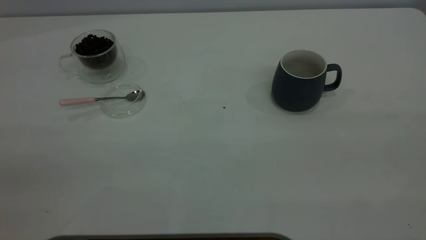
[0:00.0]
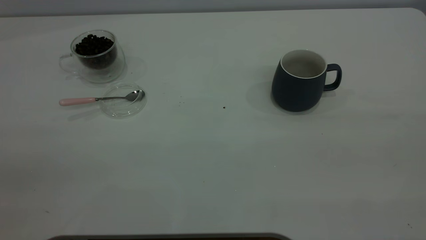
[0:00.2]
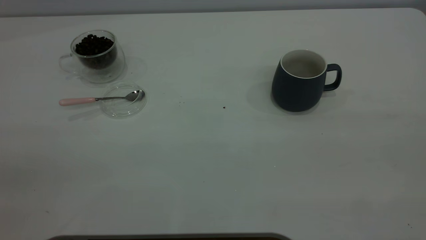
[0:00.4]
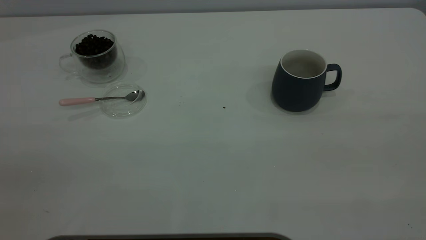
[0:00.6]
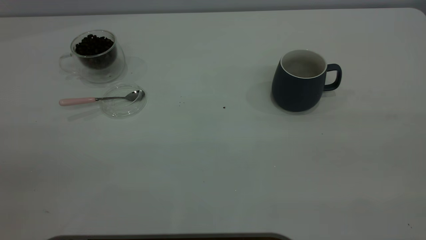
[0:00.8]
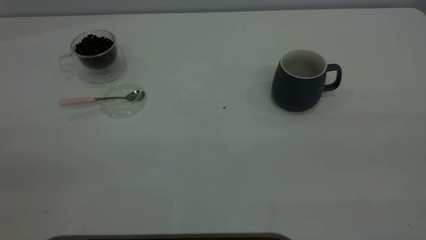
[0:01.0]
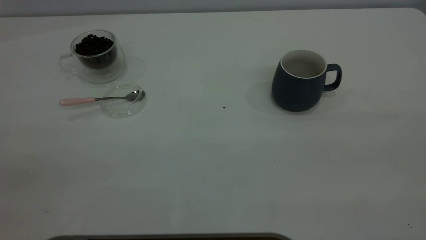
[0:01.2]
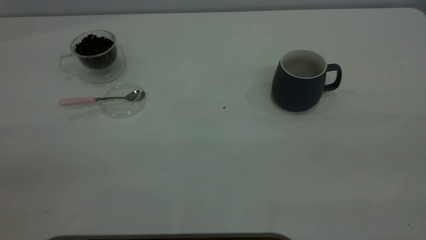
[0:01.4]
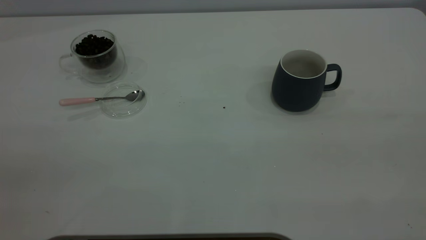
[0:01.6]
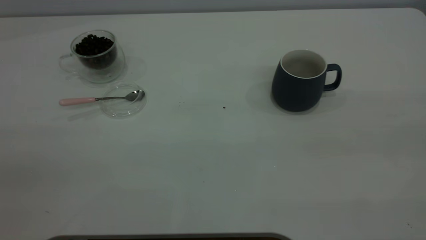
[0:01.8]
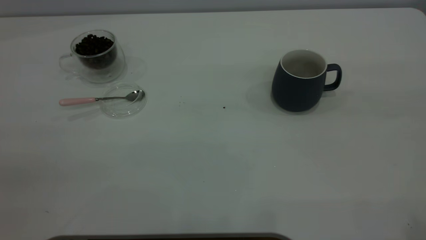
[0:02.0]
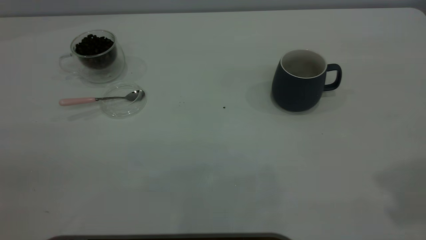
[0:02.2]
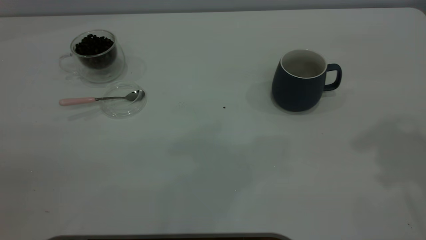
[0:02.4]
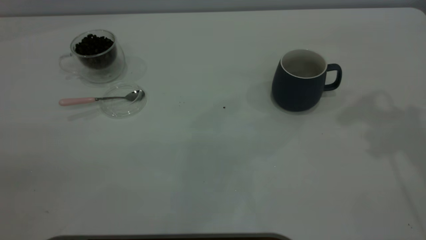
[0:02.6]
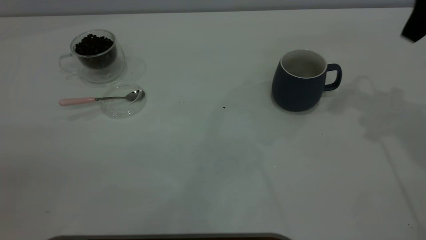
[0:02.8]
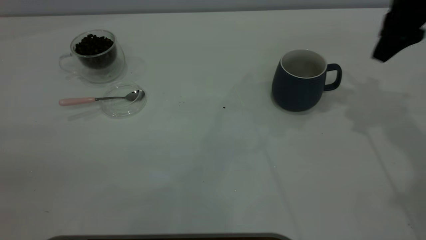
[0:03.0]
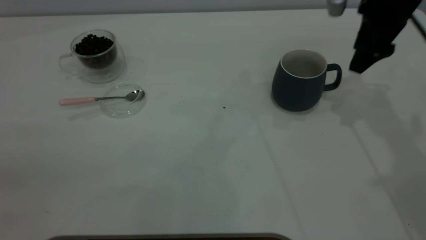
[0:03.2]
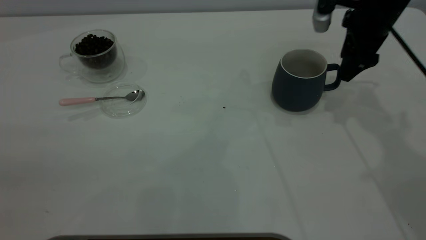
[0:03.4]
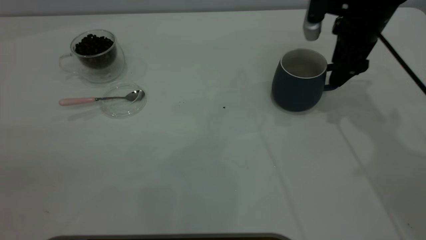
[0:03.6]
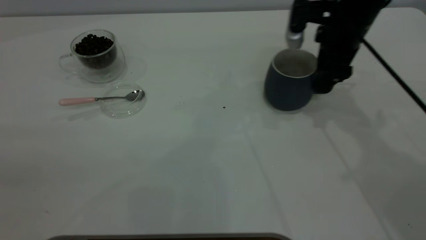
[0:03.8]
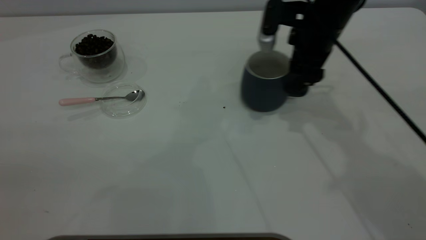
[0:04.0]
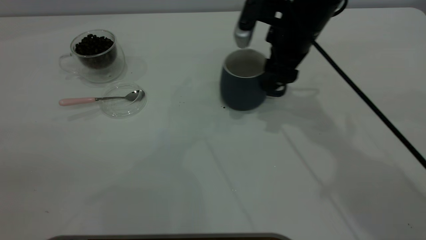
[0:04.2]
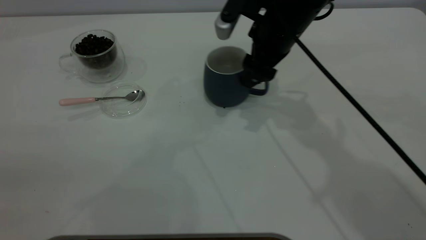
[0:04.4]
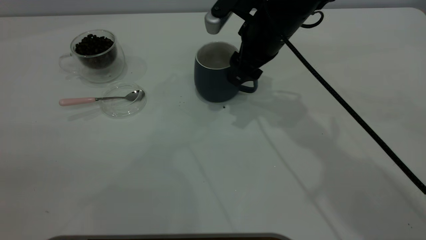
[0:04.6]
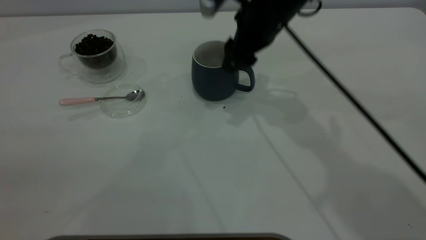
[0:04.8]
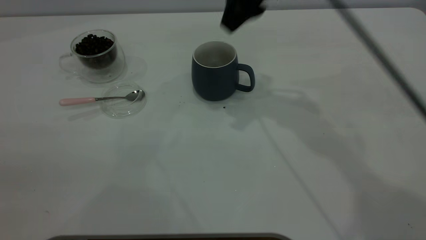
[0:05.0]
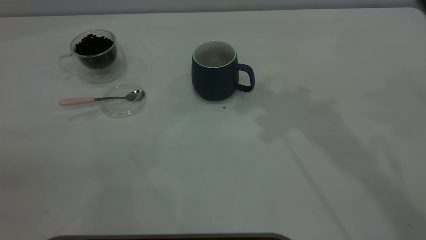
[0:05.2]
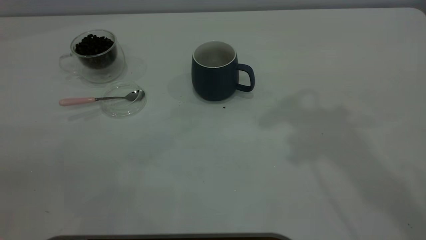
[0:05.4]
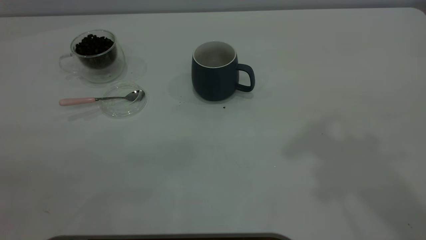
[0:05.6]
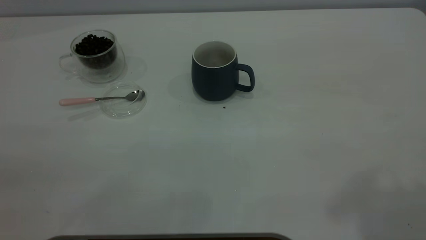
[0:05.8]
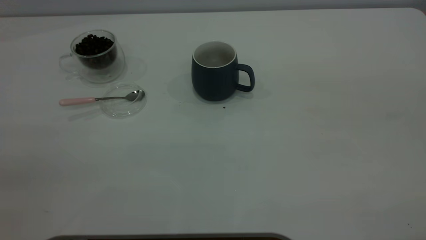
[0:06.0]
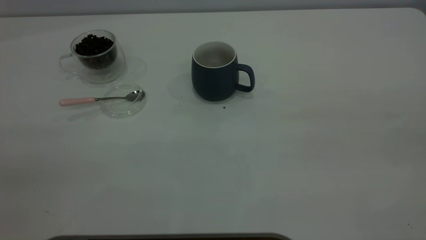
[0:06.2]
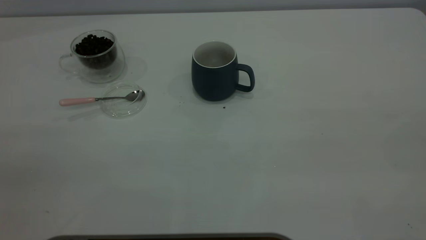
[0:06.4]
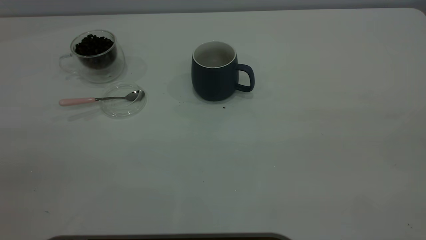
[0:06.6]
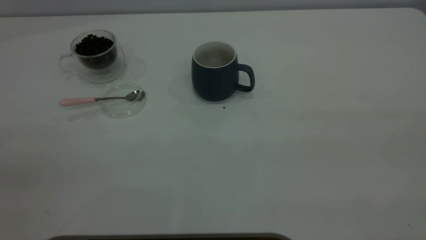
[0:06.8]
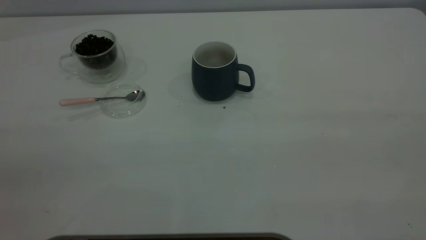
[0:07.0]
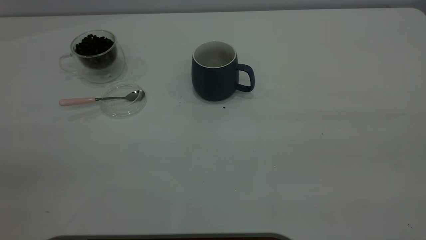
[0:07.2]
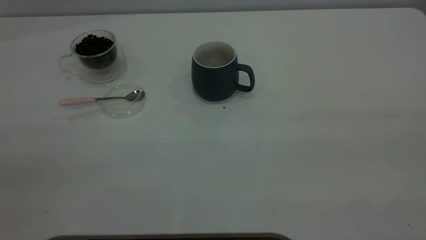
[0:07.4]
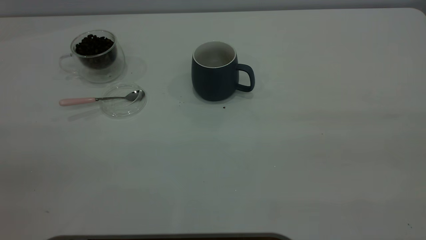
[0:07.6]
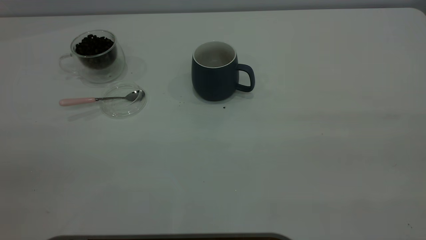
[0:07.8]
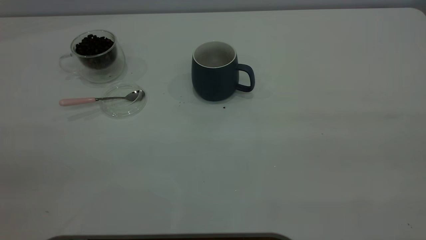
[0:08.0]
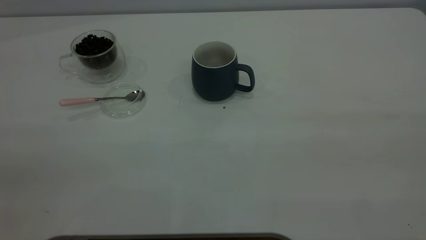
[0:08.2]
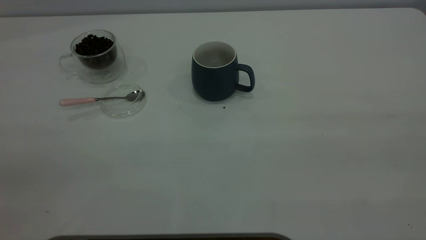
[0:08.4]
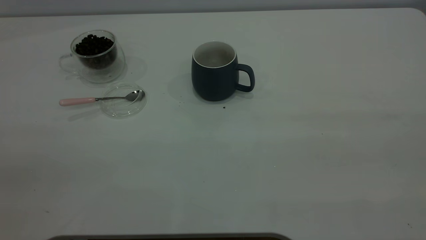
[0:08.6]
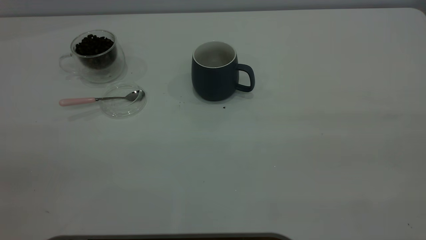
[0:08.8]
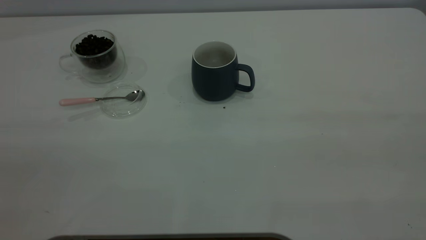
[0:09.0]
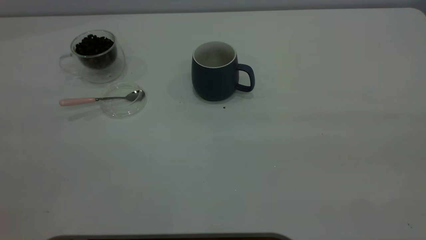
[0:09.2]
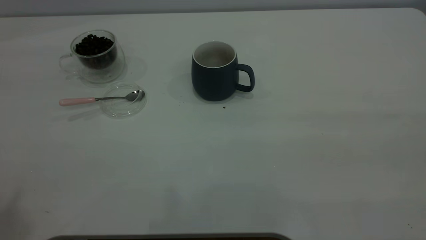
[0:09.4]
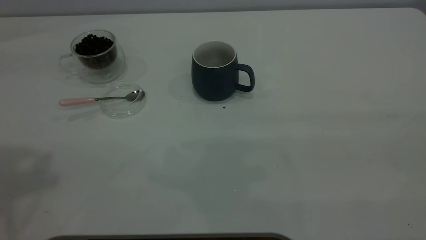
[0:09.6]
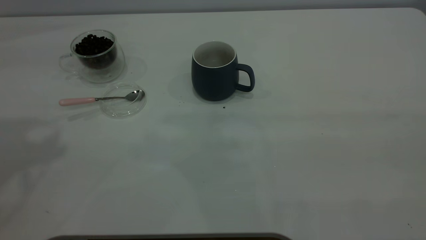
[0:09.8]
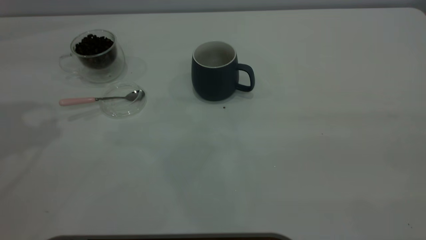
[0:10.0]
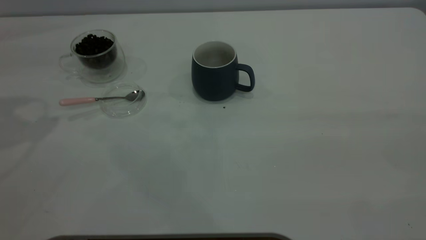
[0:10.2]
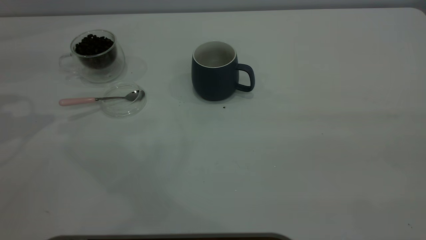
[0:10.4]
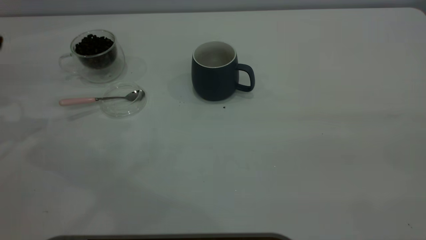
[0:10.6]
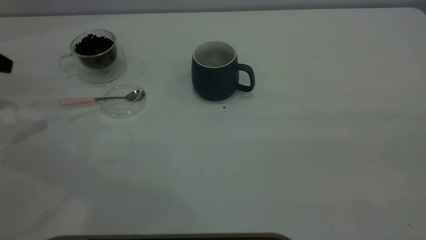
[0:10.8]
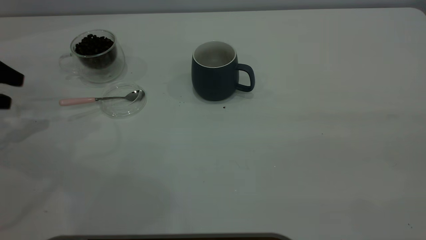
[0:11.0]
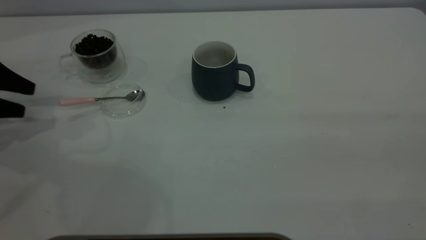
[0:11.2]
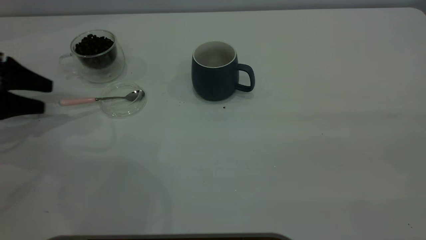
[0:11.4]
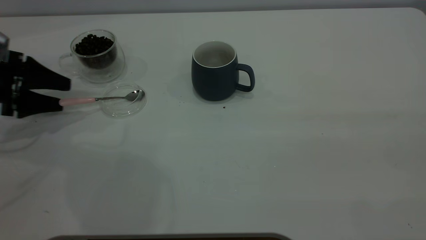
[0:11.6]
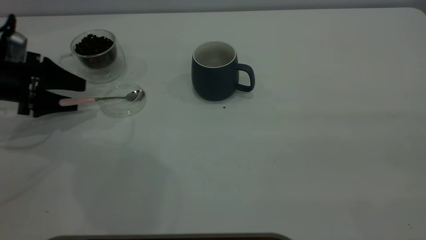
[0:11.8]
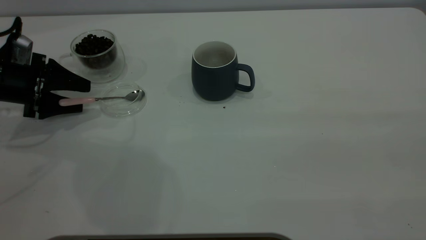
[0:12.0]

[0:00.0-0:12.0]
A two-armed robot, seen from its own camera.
Task of the whole recording: the right gripper place the grey cup in the center of the table, the left gripper take the pink spoon from the cup lid and scoop out the coffee beans from the coffee cup and put them into the grey cup, the left gripper put the spoon back into the cup lid.
Step, 0:00.0 to 0:04.8: Move the cup to the center of view.
0:00.0 to 0:01.6: The two grippers keep their place.
0:01.6 to 0:03.0: The right gripper shifts about 40 cm forward.
0:03.0 to 0:04.4: The right gripper heads to the left, covering about 15 cm.
0:04.4 to 0:06.0: The right gripper heads backward, upward and to the right, covering about 50 cm.
0:10.4 to 0:12.0: The left gripper moves downward, about 20 cm.

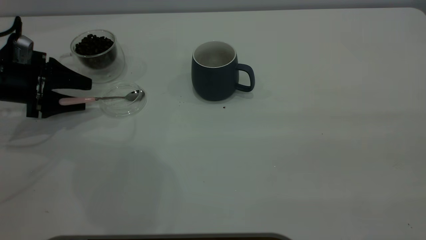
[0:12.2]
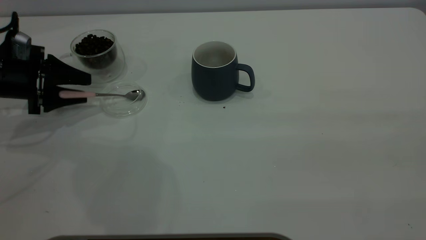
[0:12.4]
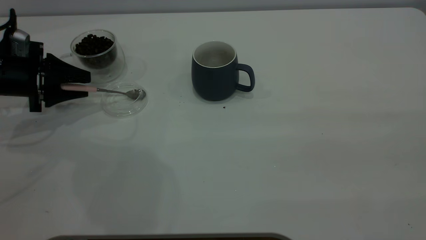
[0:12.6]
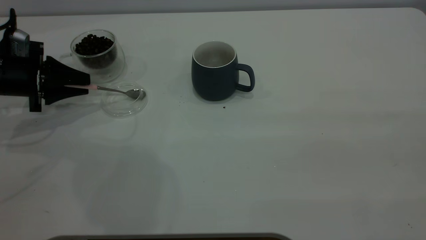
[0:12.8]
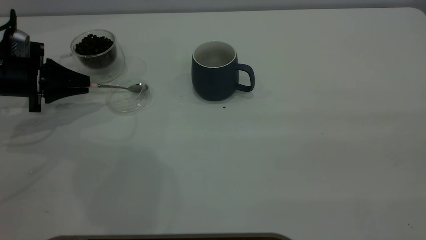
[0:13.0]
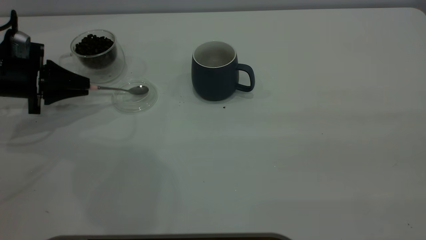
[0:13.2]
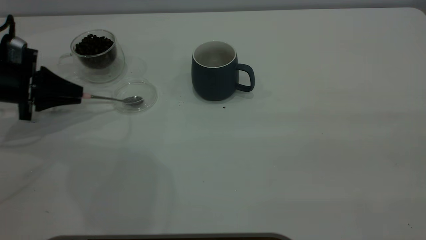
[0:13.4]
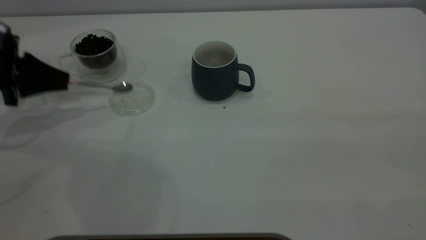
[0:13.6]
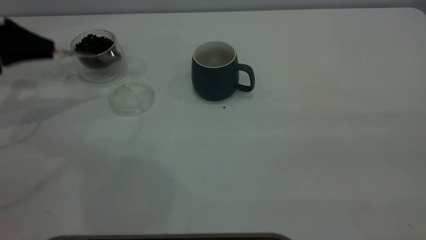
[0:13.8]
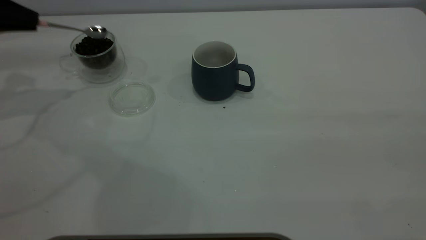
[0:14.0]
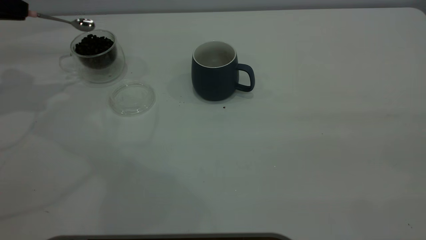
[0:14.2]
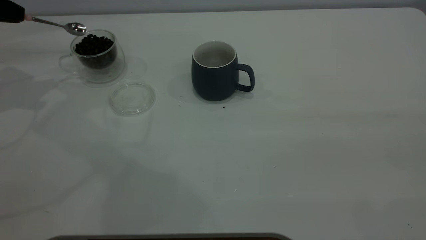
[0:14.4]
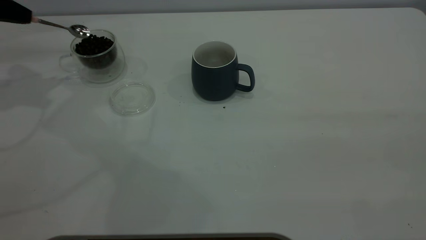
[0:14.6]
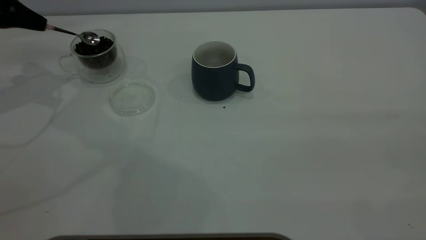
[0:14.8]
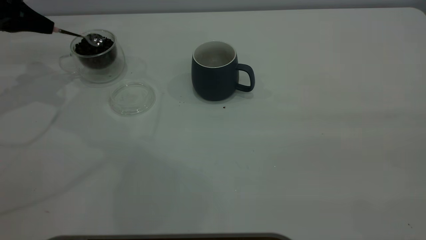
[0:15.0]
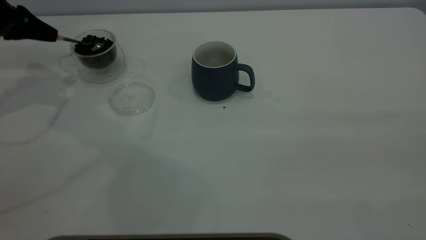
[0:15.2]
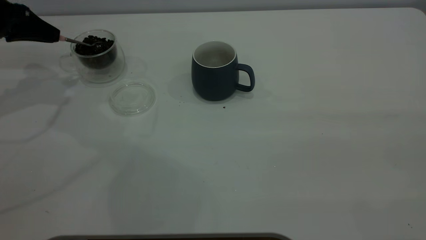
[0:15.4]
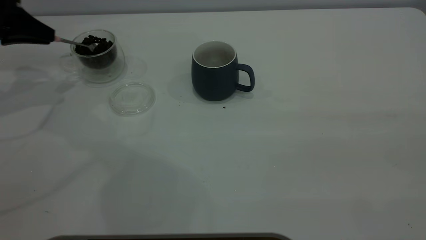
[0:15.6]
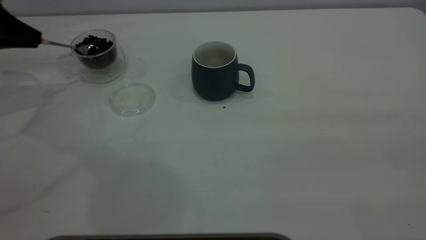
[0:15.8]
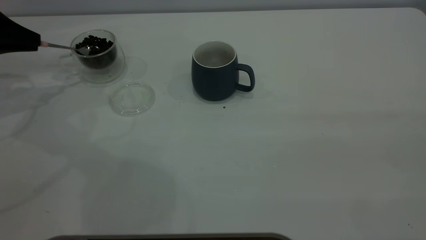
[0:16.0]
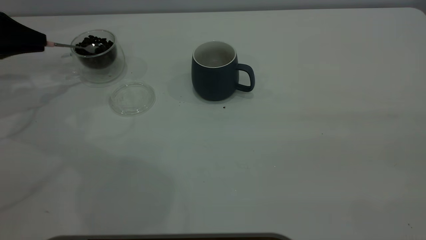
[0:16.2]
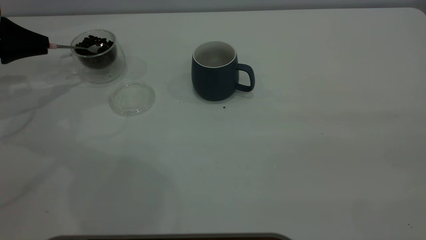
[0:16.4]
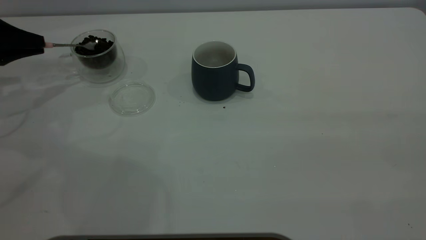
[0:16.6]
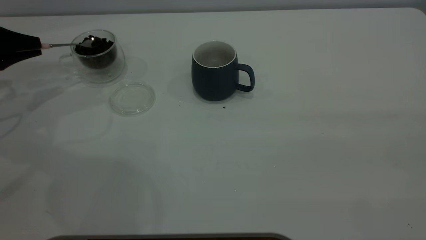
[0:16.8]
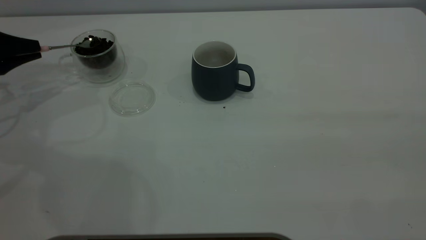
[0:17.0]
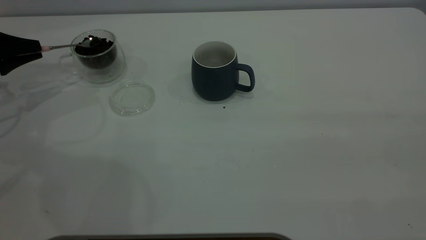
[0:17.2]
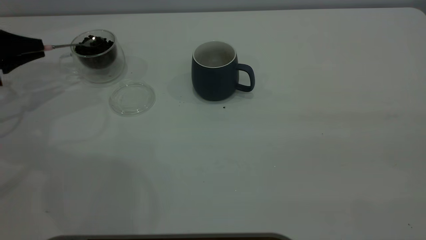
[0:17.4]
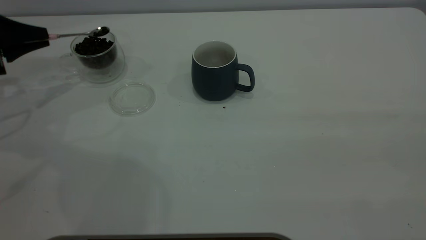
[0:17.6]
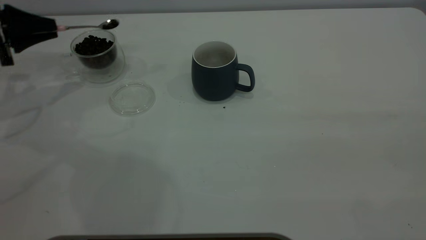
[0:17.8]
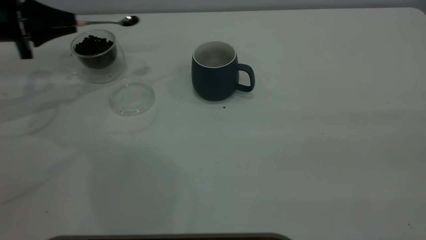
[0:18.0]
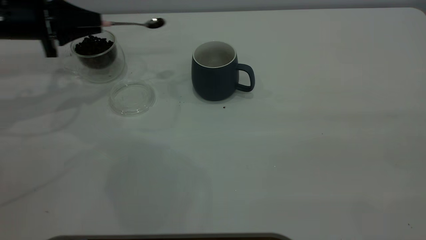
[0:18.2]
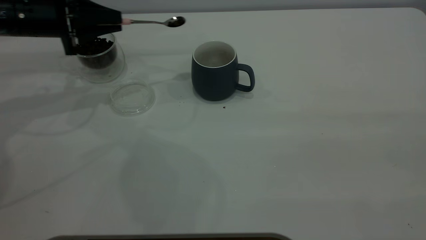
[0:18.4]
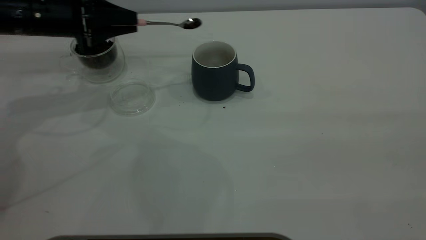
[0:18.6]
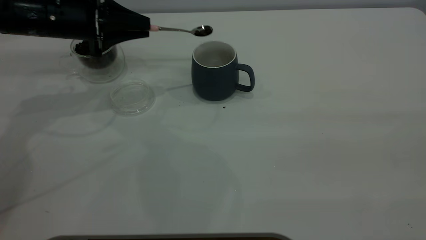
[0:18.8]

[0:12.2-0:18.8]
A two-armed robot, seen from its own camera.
Task of the whole recording: the right gripper place the grey cup in the center of the table, the left gripper take the pink spoon from the cup lid and scoop out the coffee beans from the coffee cup and put them into the grey cup, the left gripper put the spoon back into the cup lid.
0:12.2 to 0:13.8: The left gripper is displaced upward by approximately 10 cm, and closes up.
0:15.4 to 0:17.2: The left gripper shifts some 5 cm downward.
0:17.2 to 0:18.8: The left gripper heads to the right, covering about 20 cm.
